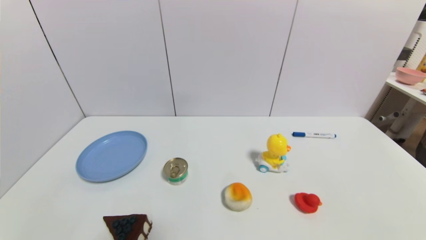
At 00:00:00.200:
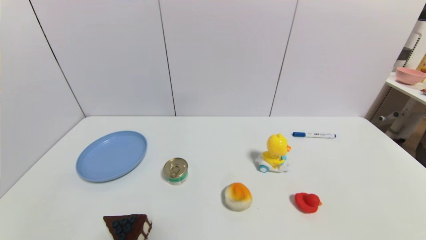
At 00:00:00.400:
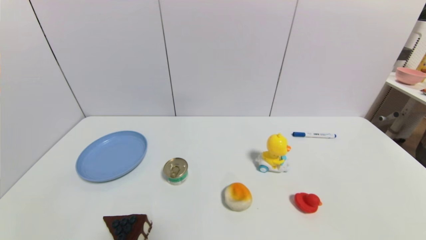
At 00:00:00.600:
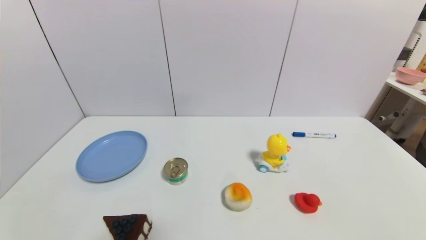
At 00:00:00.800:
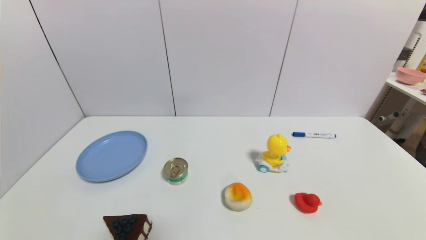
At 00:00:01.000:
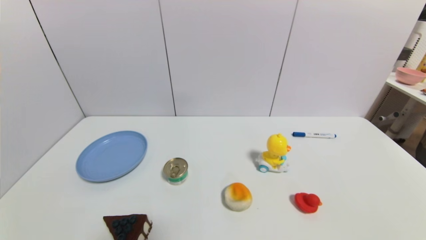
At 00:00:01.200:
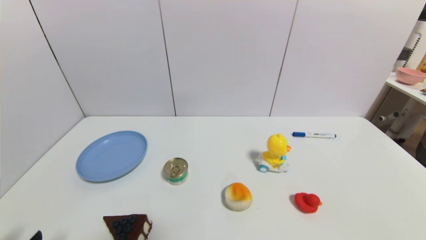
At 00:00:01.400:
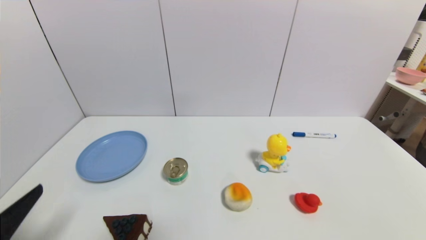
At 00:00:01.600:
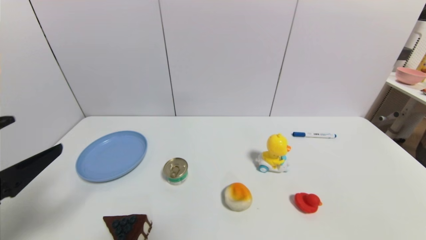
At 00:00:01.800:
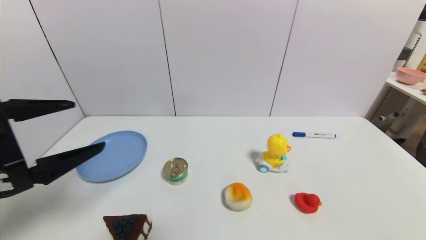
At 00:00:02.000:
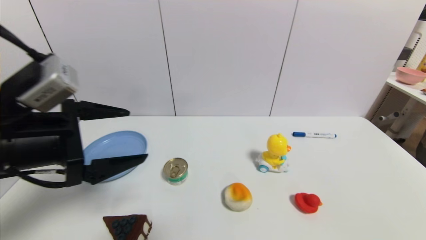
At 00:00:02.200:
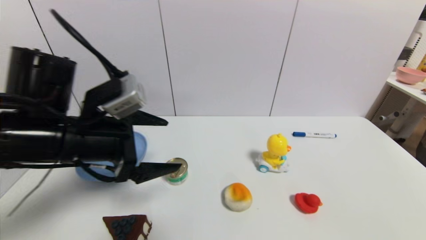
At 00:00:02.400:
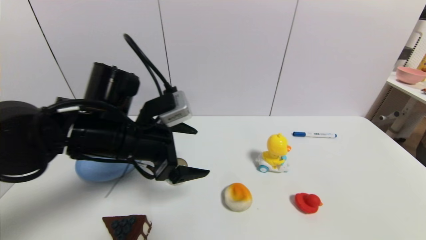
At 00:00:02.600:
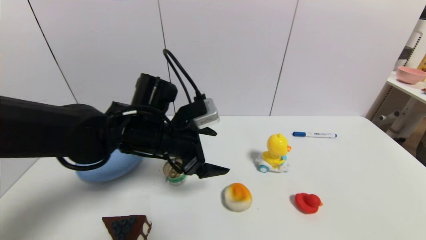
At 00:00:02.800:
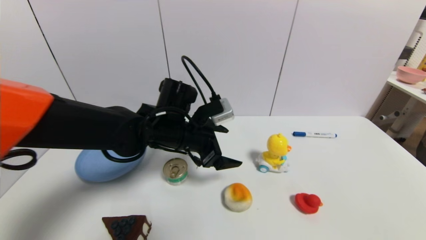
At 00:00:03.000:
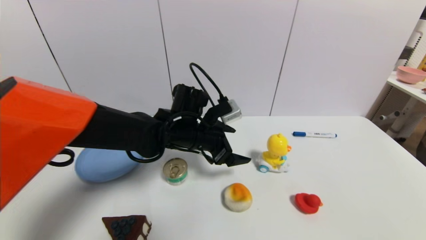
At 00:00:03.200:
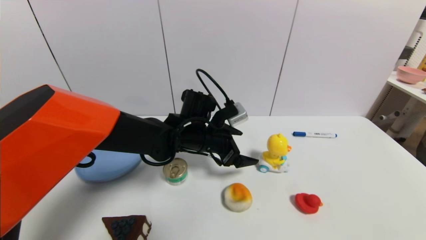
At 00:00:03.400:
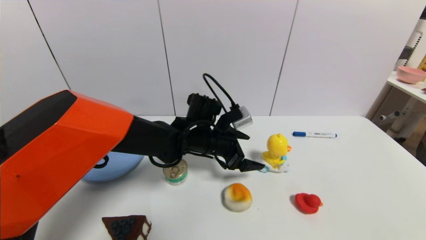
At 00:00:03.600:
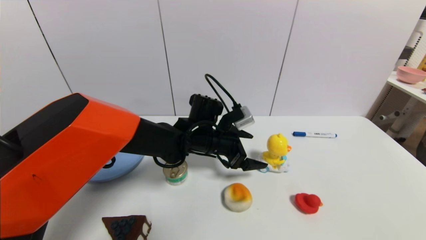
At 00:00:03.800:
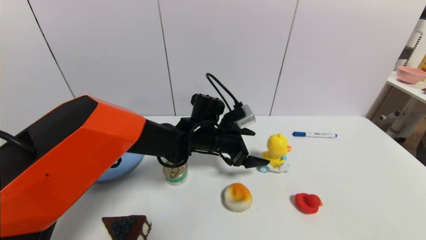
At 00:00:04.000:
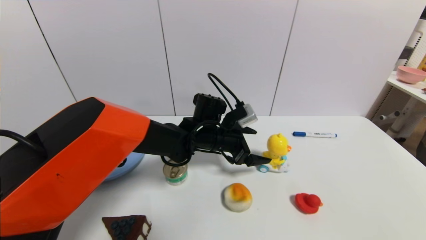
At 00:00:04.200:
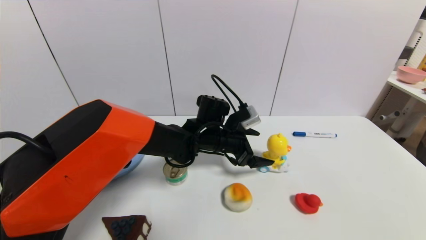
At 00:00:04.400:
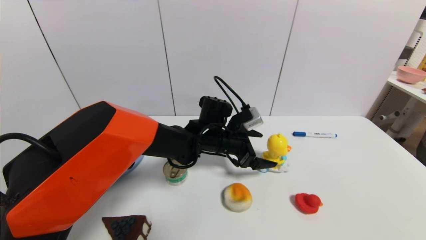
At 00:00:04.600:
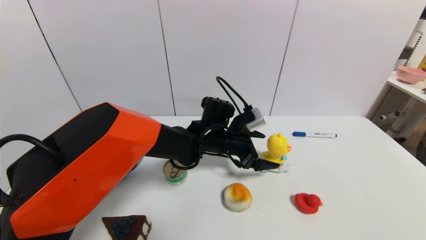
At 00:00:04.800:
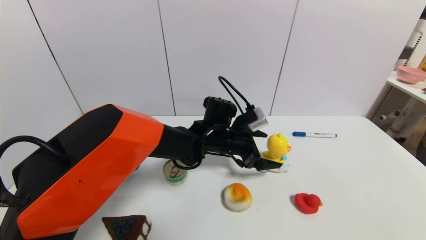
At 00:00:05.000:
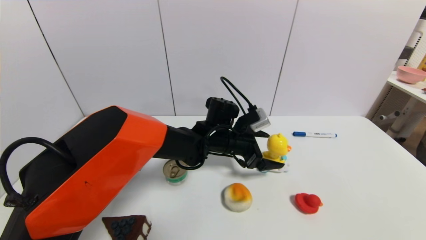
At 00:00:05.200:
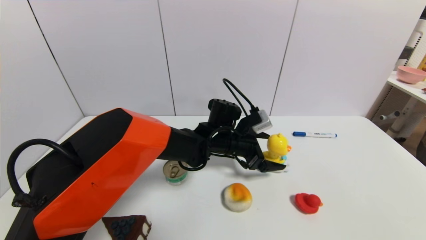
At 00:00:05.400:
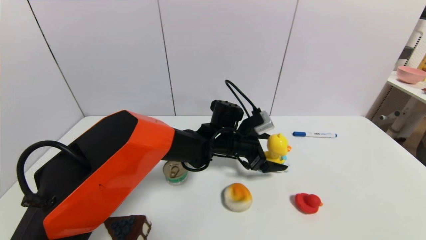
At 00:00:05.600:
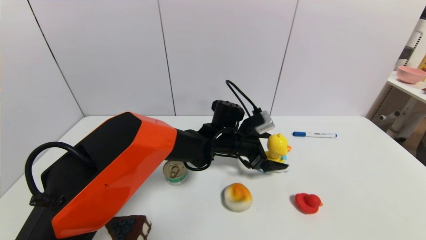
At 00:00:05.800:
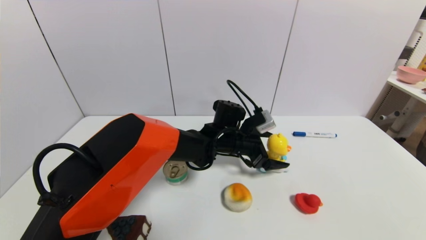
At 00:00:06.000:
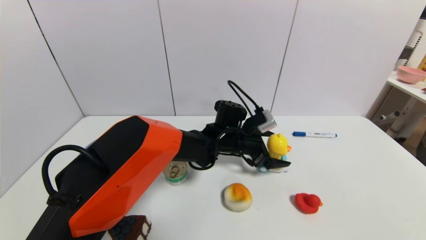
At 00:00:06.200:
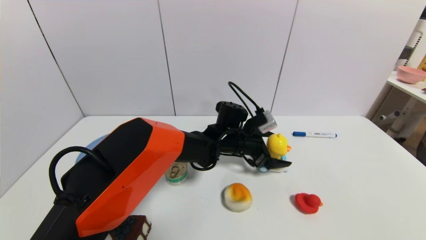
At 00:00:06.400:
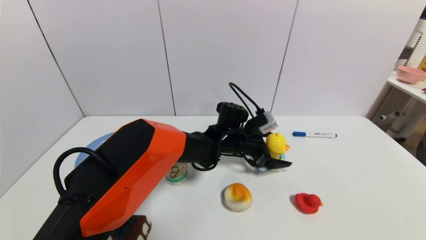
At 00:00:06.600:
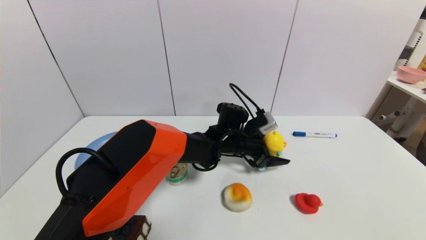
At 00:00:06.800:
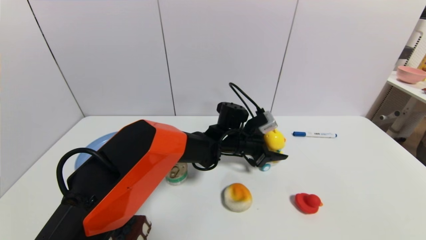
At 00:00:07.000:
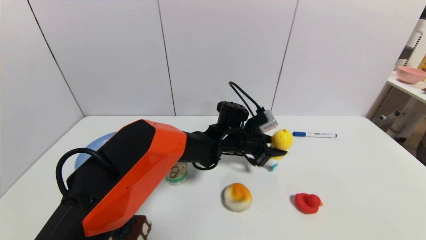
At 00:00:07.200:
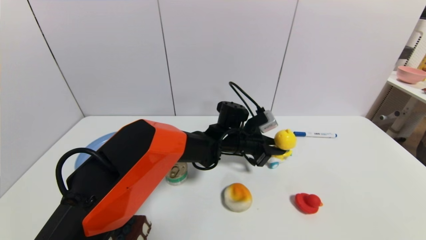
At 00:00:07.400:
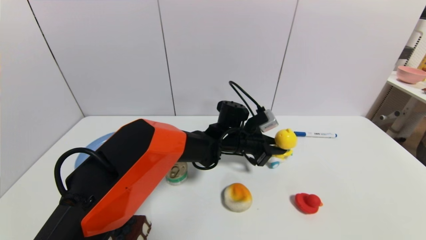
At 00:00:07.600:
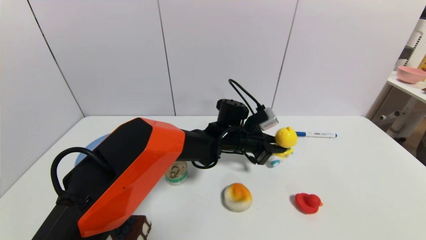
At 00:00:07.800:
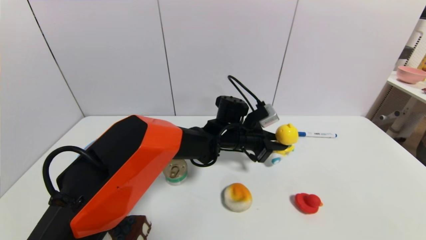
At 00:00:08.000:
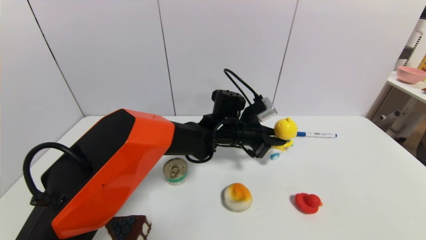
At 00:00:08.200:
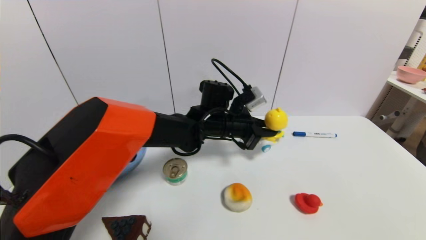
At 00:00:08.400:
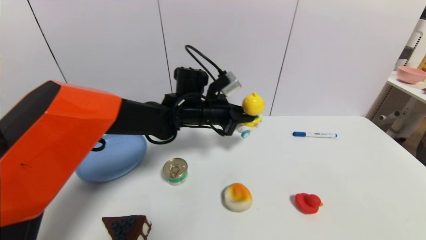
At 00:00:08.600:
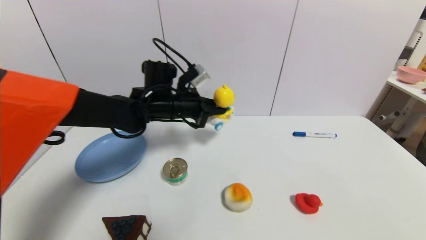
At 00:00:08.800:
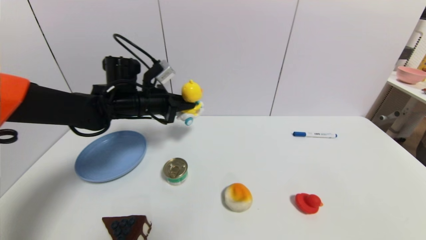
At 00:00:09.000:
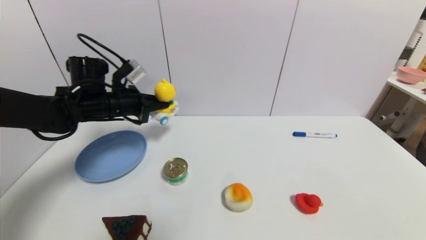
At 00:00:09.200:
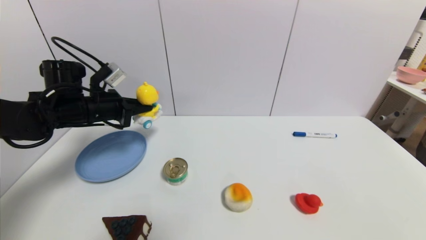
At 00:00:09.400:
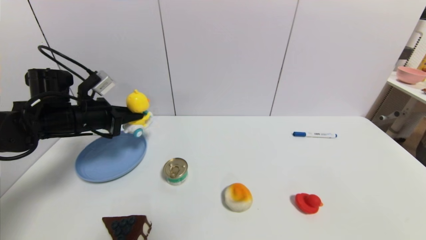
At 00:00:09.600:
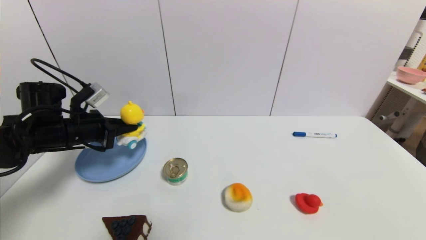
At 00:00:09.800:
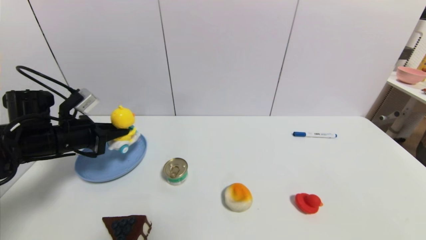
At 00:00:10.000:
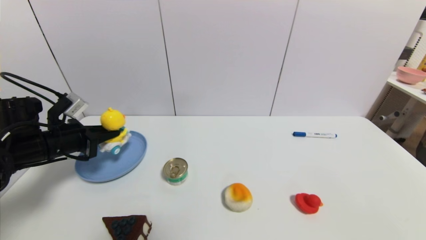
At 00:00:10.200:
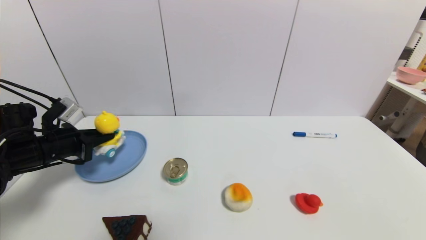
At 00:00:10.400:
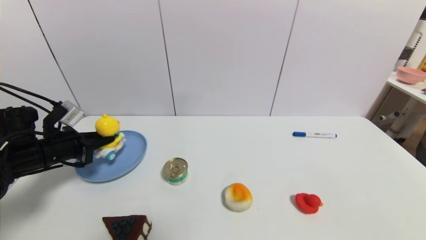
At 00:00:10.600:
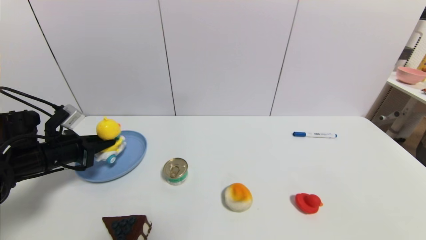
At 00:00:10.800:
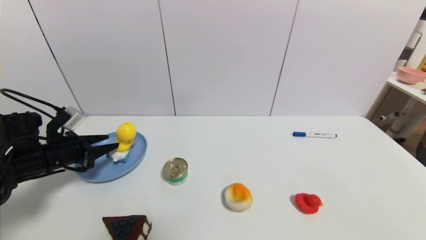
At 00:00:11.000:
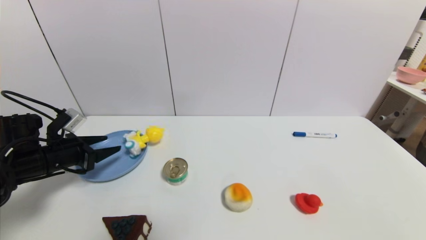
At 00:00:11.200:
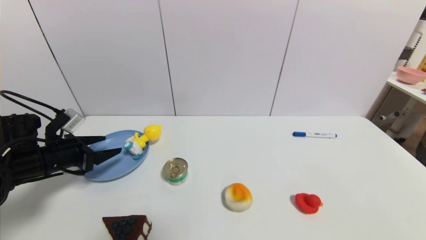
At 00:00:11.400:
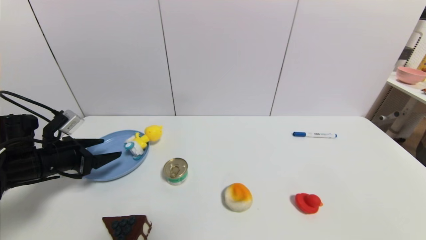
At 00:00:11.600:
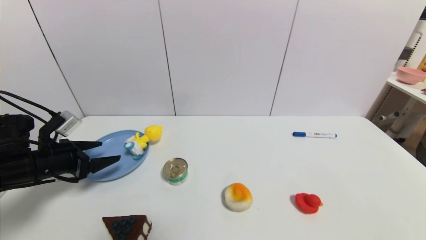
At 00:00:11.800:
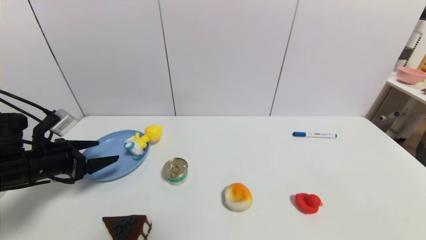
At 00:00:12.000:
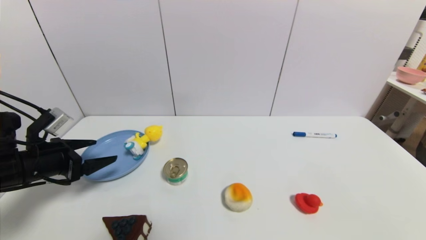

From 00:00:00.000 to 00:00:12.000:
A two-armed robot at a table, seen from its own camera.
Task of the whole recording: use a gripper to pick the target object and place on the blue plate.
Step, from 00:00:00.000 to 00:00:07.000: Grasp the duck toy with the left gripper.
Step, from 00:00:07.200 to 00:00:10.600: Place the duck toy on the blue plate with the left gripper.
From 00:00:00.000 to 00:00:01.600: The left gripper moves upward and forward, some 20 cm.
From 00:00:01.600 to 00:00:03.000: The left gripper shifts some 35 cm to the right and forward.
From 00:00:03.000 to 00:00:04.400: The left gripper goes roughly 5 cm to the right.
From 00:00:06.000 to 00:00:07.600: The left gripper closes up.
From 00:00:07.600 to 00:00:09.000: The left gripper shifts roughly 30 cm to the left.
From 00:00:09.000 to 00:00:10.400: The left gripper shifts some 15 cm to the left, backward and downward.
From 00:00:10.400 to 00:00:12.000: The left gripper shifts by some 5 cm, and opens up.

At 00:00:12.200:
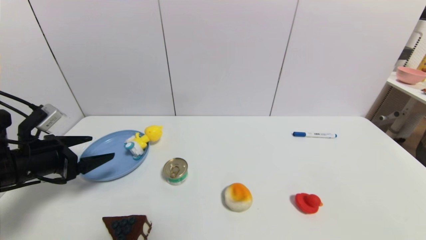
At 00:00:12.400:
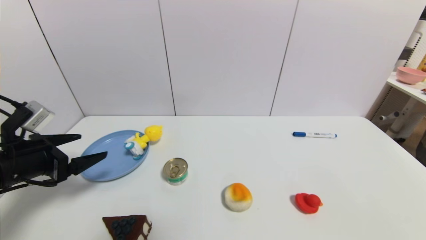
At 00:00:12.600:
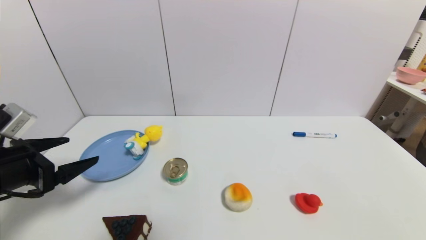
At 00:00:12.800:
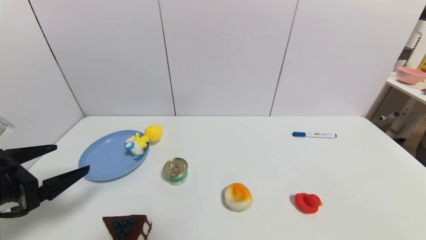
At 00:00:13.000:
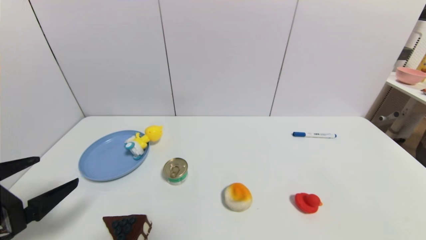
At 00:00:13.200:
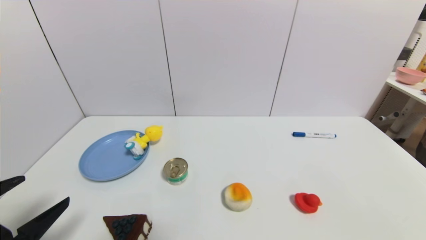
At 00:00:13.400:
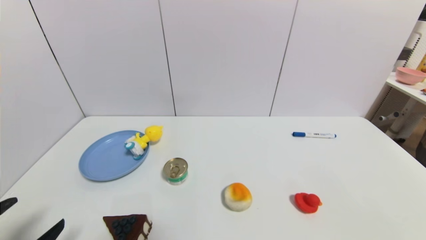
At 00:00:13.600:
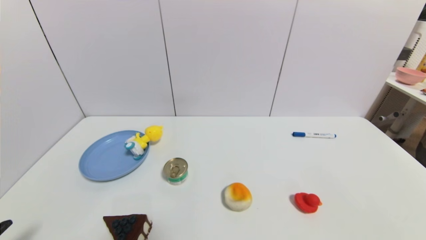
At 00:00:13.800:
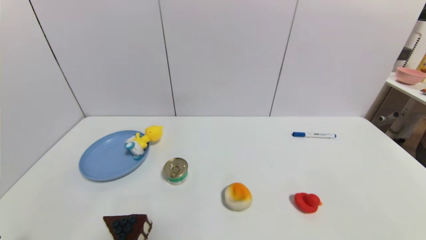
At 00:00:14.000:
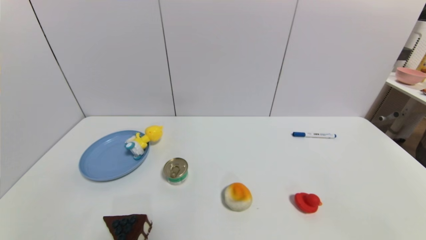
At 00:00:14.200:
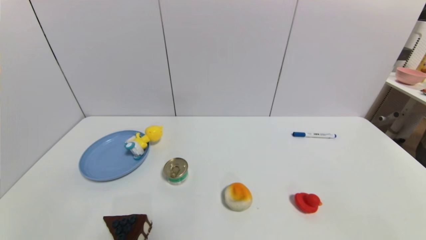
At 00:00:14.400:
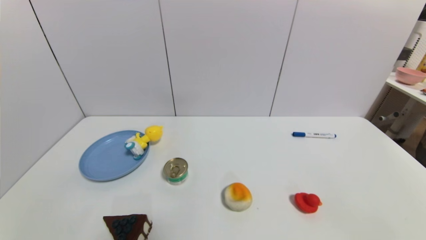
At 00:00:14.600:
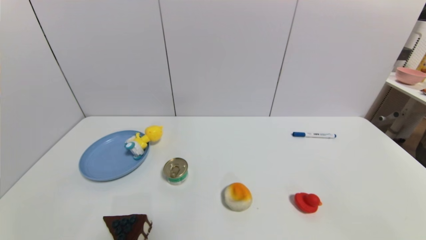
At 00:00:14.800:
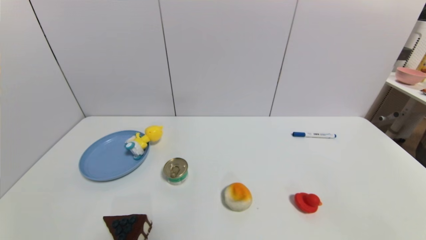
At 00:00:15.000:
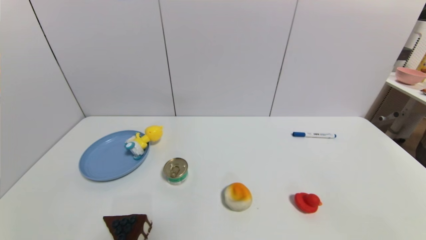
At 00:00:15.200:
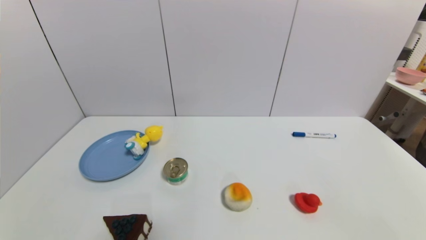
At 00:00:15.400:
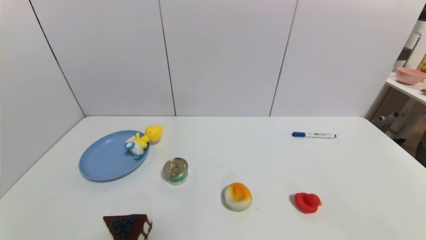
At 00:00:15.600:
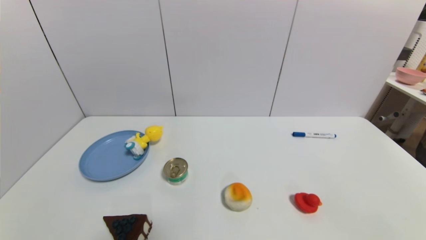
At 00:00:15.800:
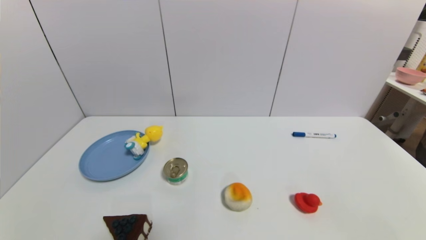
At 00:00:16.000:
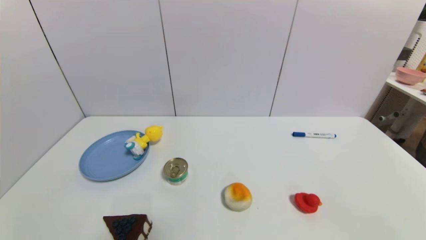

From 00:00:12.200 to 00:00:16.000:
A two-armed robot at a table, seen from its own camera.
Task of the whole recording: use a gripper to pick the target object and place on the blue plate.
From 00:00:12.200 to 00:00:13.400: The left gripper travels backward by approximately 20 cm.
From 00:00:13.400 to 00:00:14.800: The left gripper moves downward and backward, some 10 cm.
From 00:00:14.800 to 00:00:16.000: Both grippers stay put.
